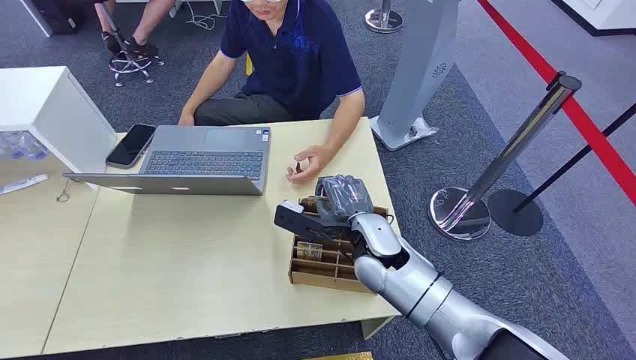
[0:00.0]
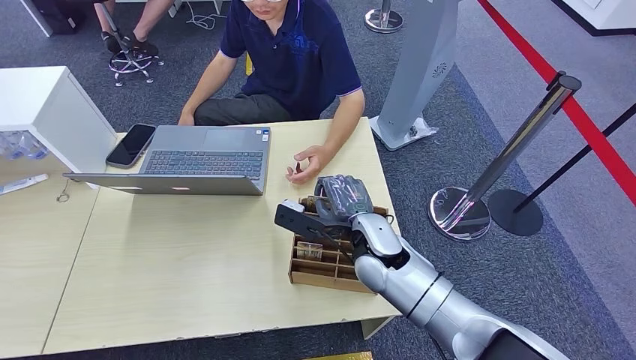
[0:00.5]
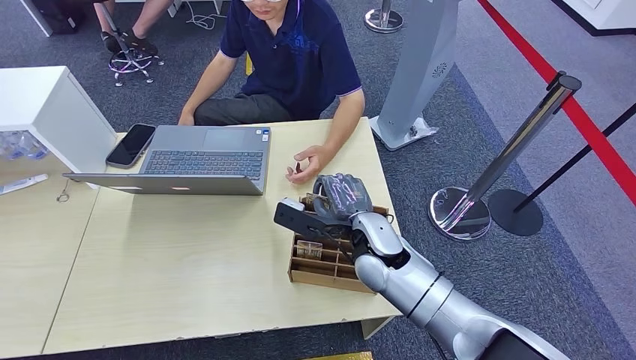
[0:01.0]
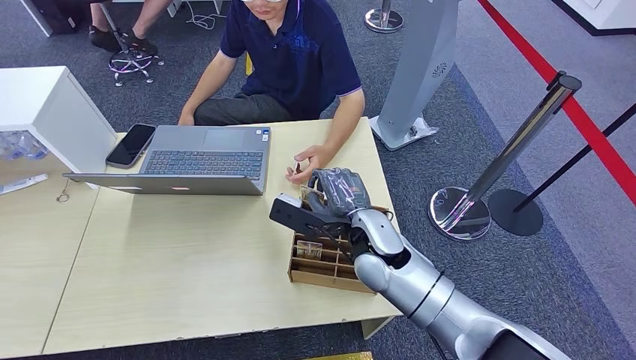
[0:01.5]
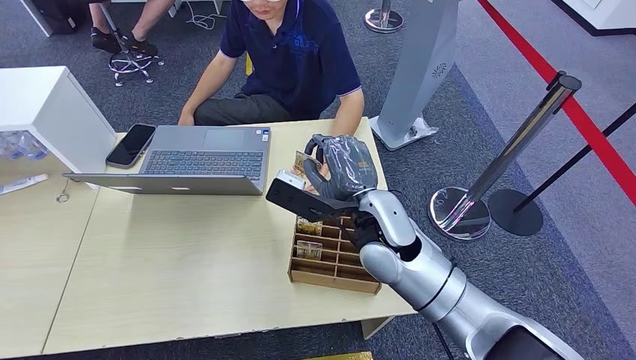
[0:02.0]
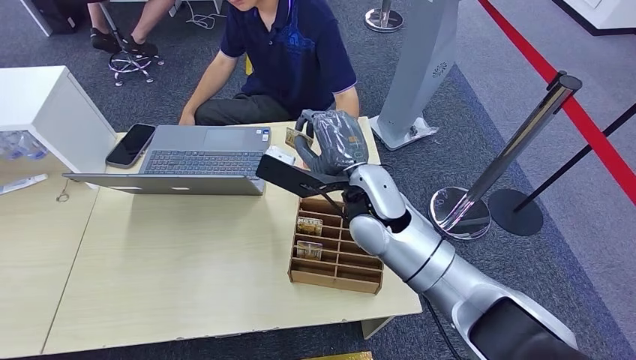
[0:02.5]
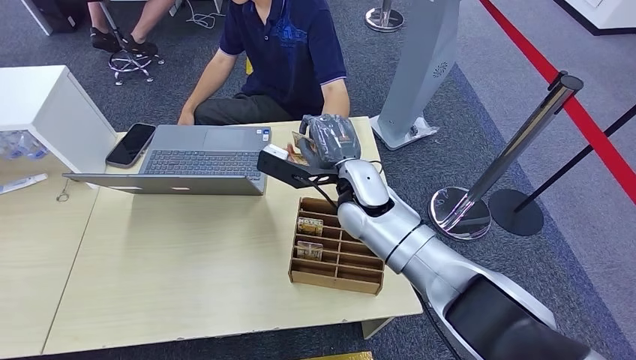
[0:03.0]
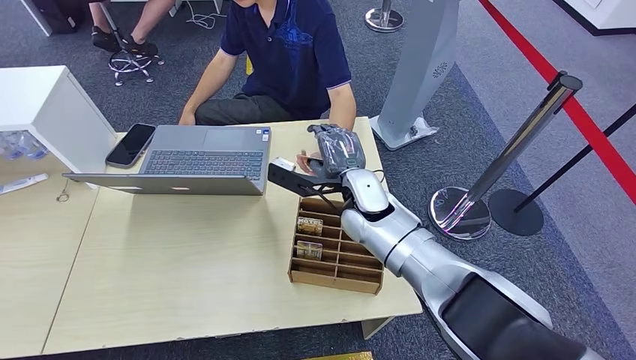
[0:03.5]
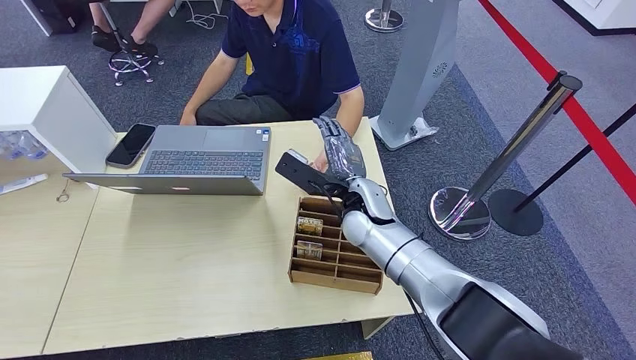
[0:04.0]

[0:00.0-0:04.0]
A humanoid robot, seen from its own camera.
Step, 0:00.0 to 0:01.5: Pick up the room card from the card holder.
0:02.0 to 0:04.0: The right hand travels forward and downward by about 10 cm.

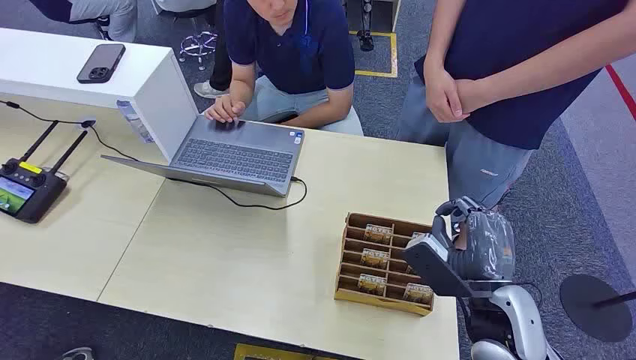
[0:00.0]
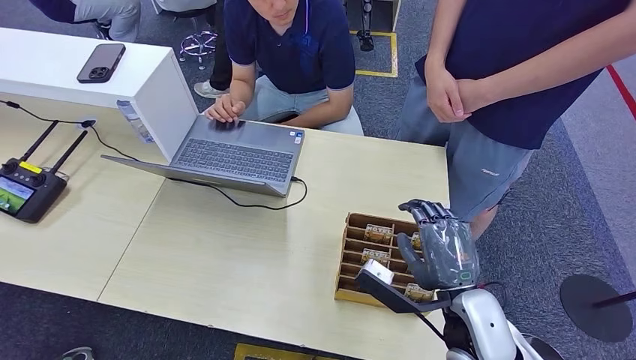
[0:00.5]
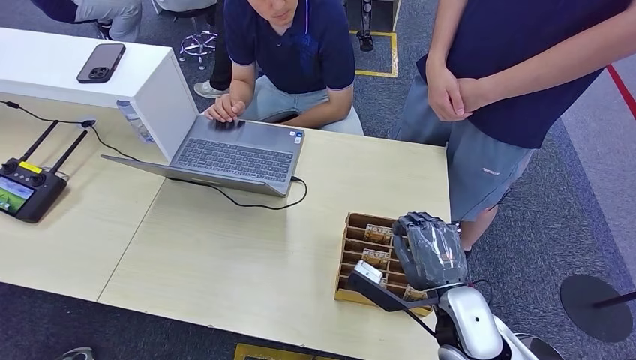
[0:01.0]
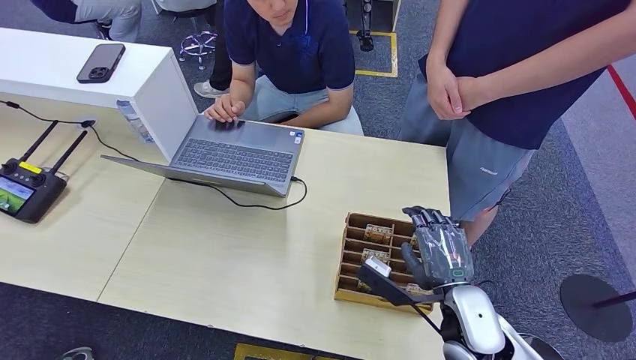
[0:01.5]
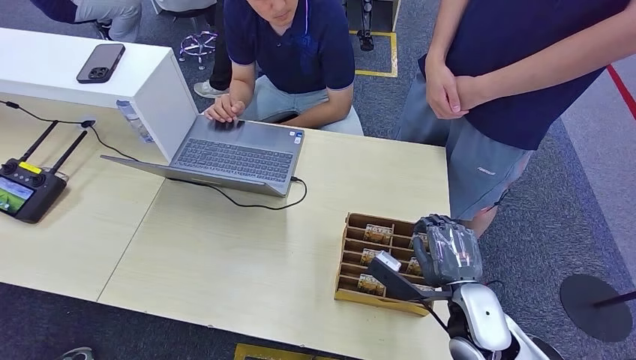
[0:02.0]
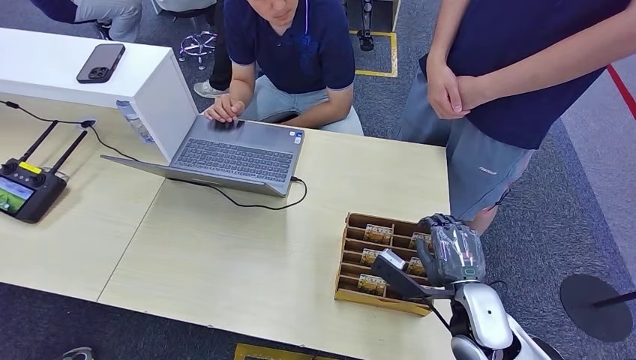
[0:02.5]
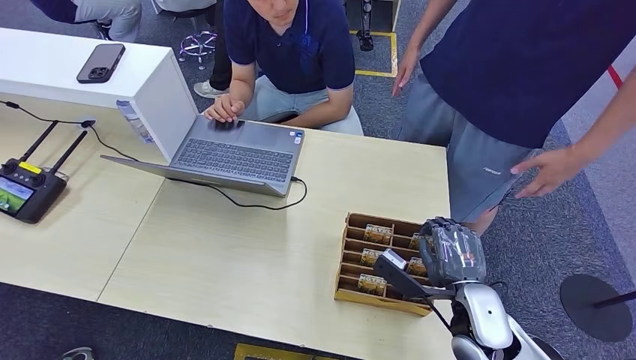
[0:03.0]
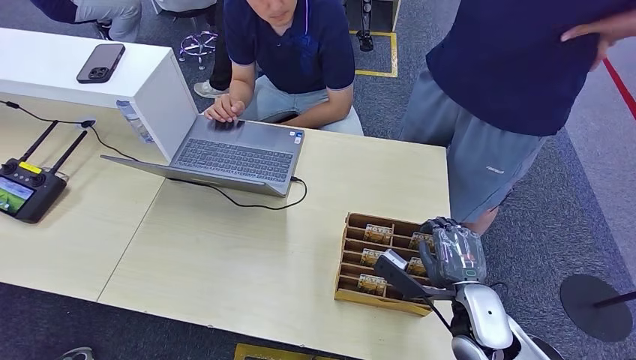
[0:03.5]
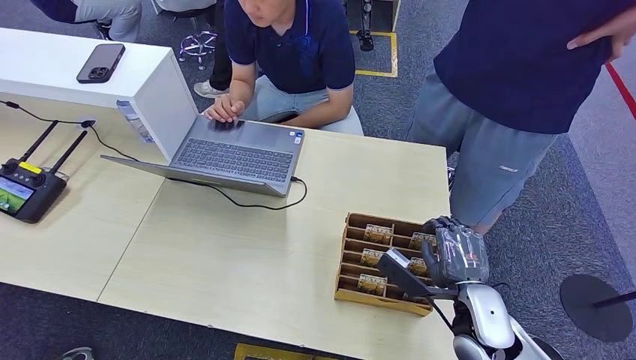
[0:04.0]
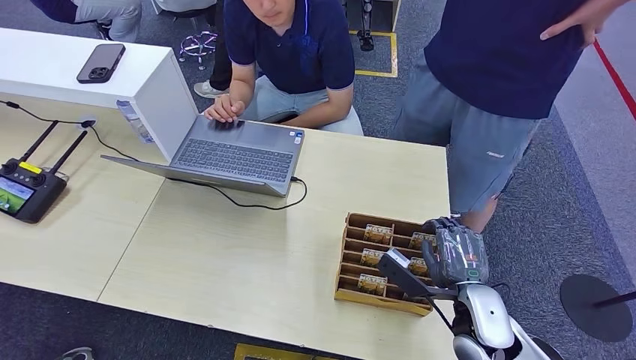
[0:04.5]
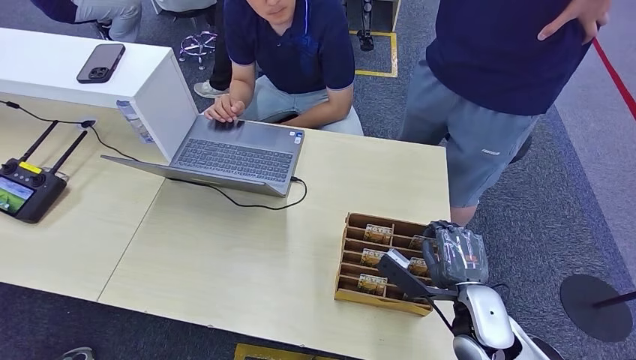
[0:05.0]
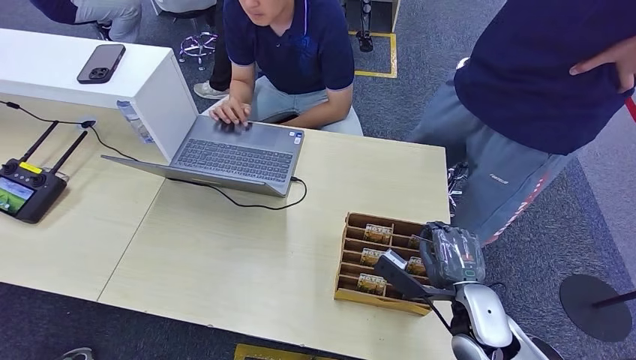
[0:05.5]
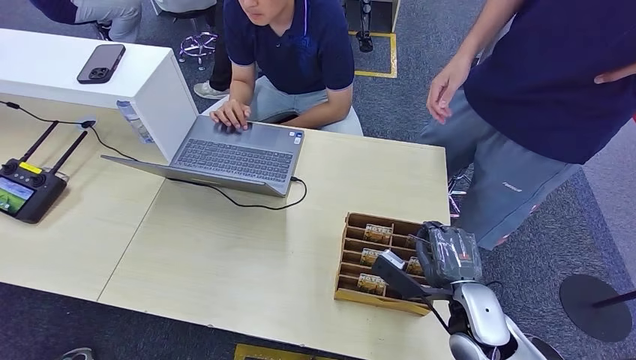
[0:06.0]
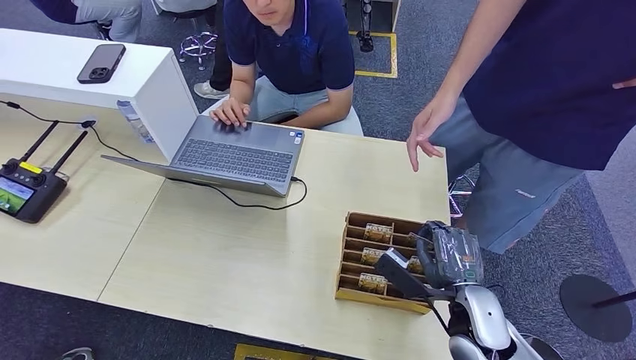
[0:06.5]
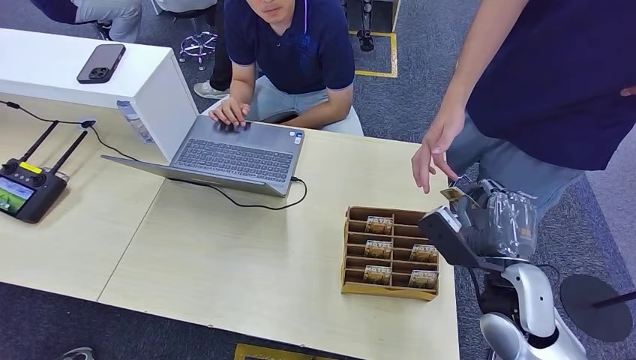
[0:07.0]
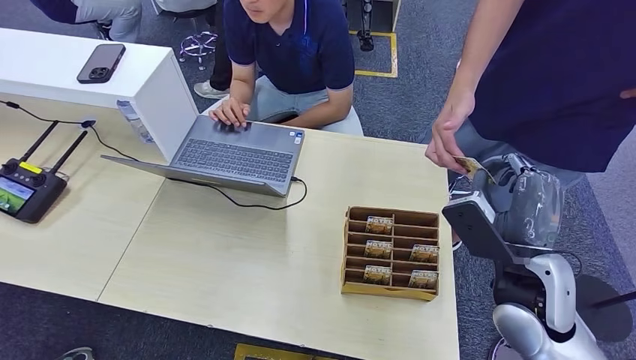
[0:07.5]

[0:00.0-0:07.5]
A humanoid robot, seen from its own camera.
Step, 0:00.0 to 0:06.5: Pick up the room card from the card holder.
Step, 0:07.0 to 0:07.5: Hand the room card to the target.
0:02.0 to 0:04.0: The hands move only a little.
0:04.0 to 0:05.5: Neither hand changes place.
0:05.5 to 0:07.5: The right hand is displaced upward by approximately 10 cm.

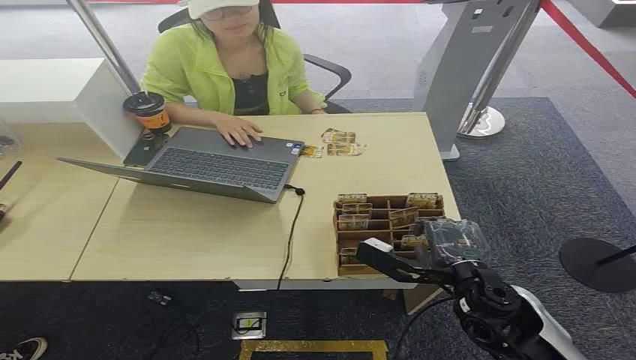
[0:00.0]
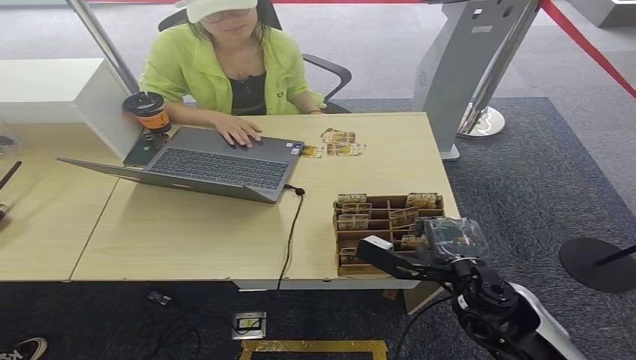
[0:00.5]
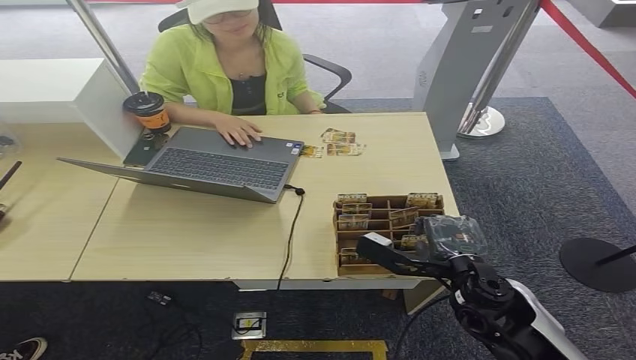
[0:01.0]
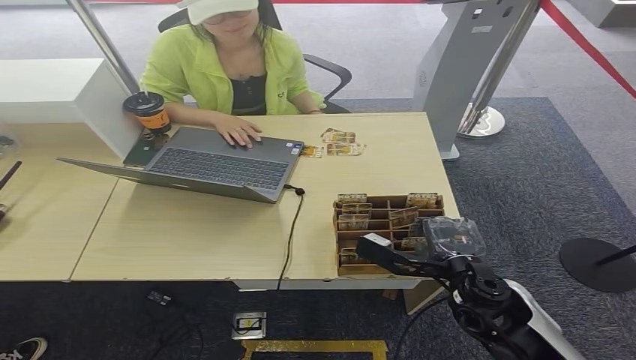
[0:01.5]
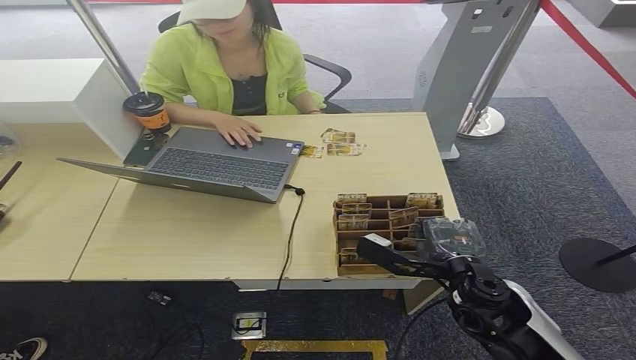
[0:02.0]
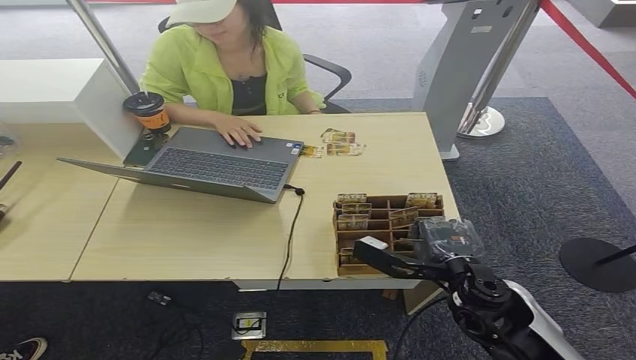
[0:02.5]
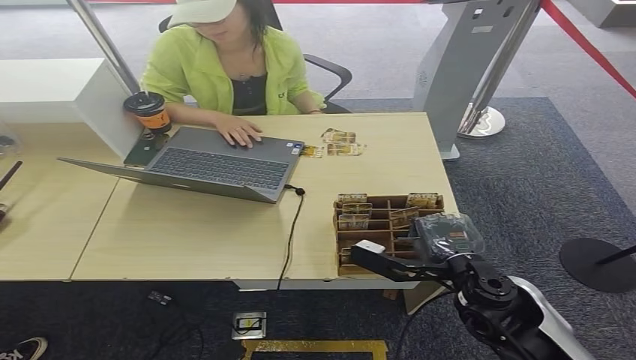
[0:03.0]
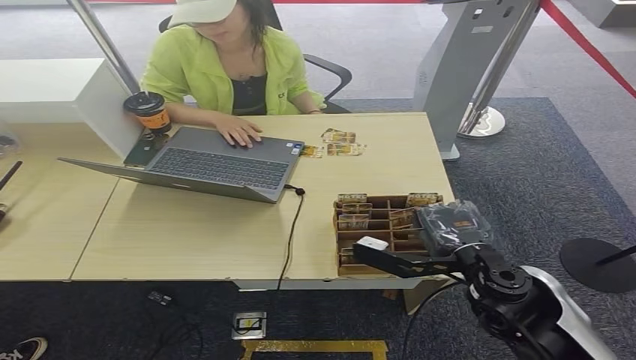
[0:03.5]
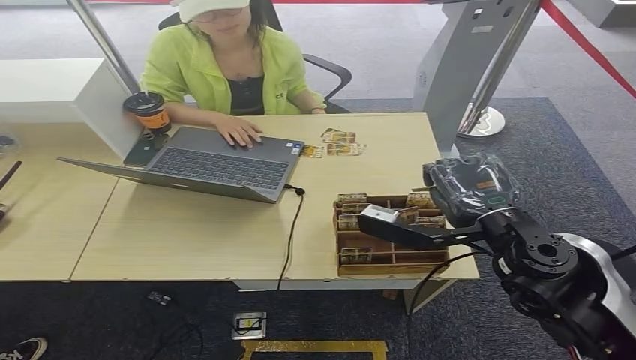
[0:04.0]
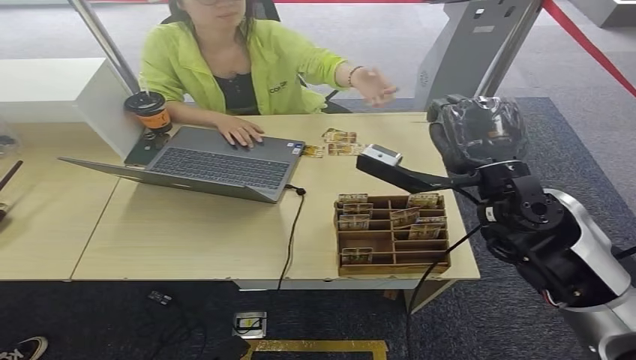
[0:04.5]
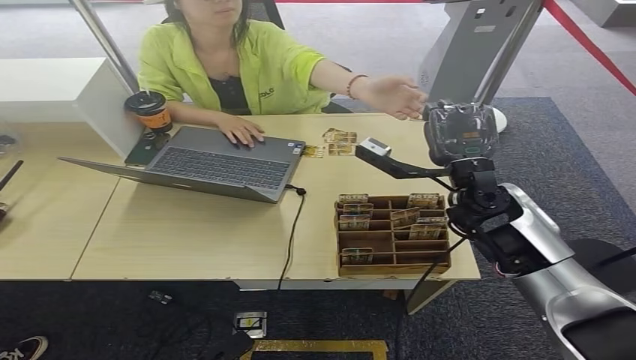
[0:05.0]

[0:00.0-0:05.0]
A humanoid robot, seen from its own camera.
Step, 0:00.0 to 0:01.5: Pick up the room card from the card holder.
Step, 0:02.0 to 0:05.0: Hand the room card to the target.
0:02.5 to 0:05.0: The right hand is displaced forward and upward by about 15 cm.
